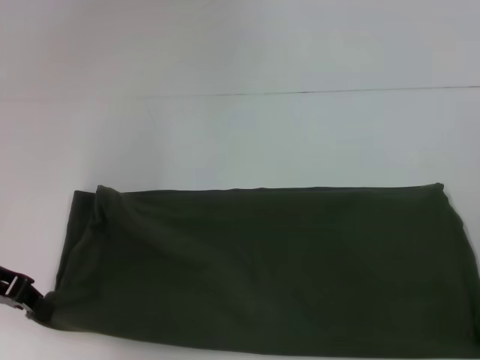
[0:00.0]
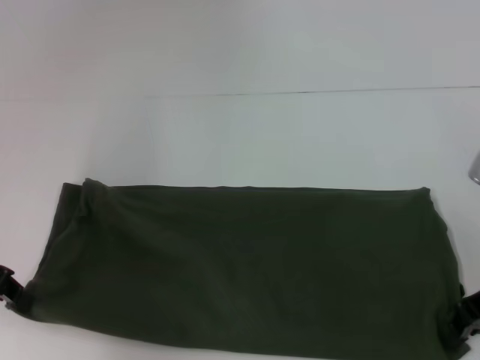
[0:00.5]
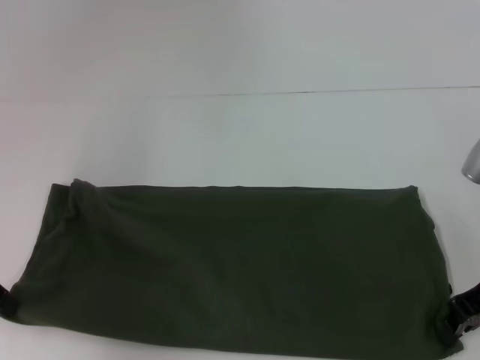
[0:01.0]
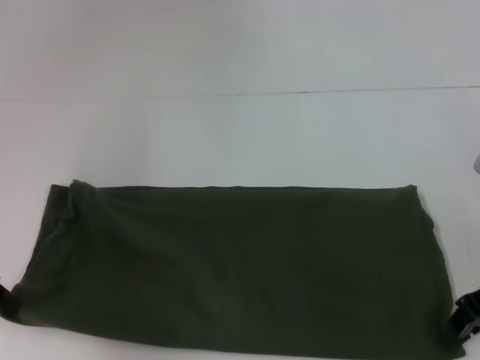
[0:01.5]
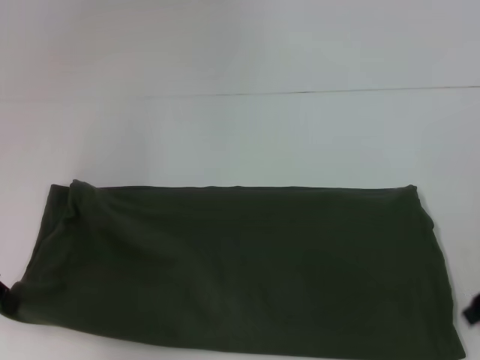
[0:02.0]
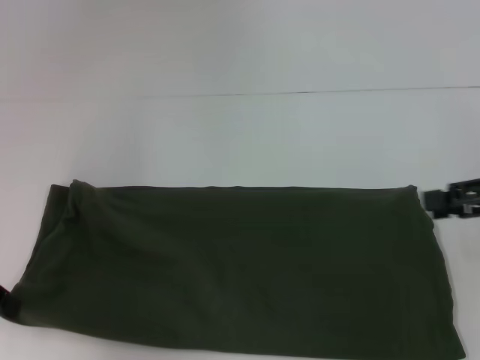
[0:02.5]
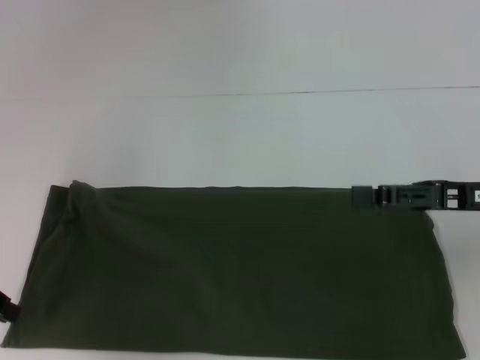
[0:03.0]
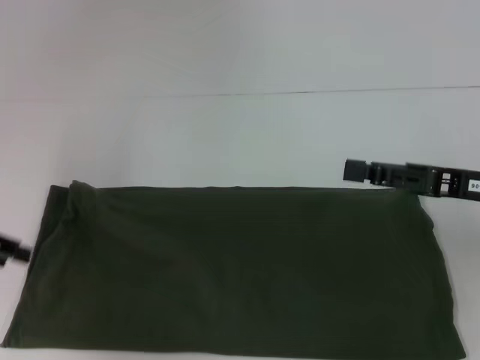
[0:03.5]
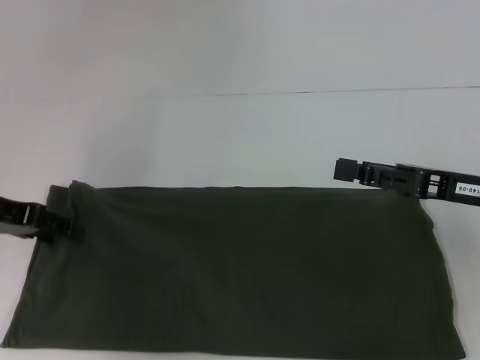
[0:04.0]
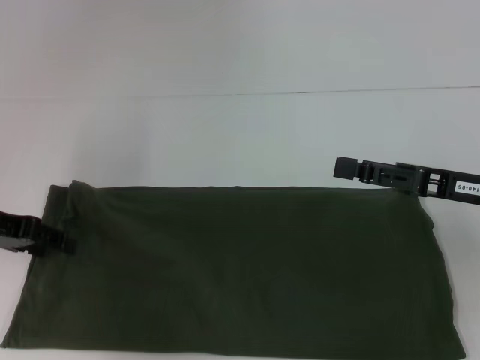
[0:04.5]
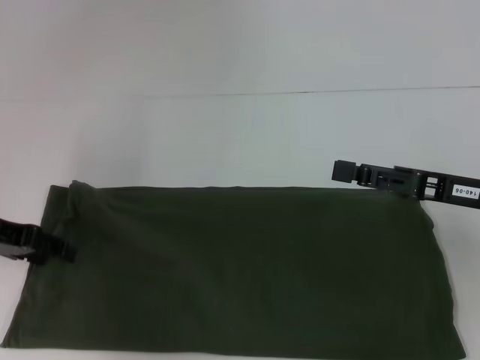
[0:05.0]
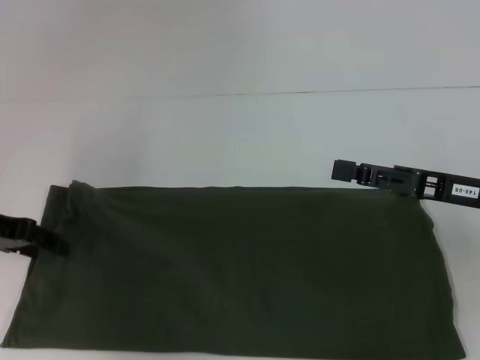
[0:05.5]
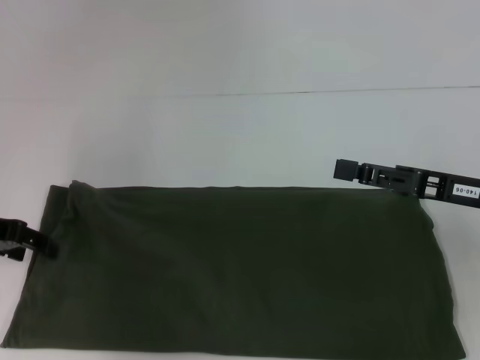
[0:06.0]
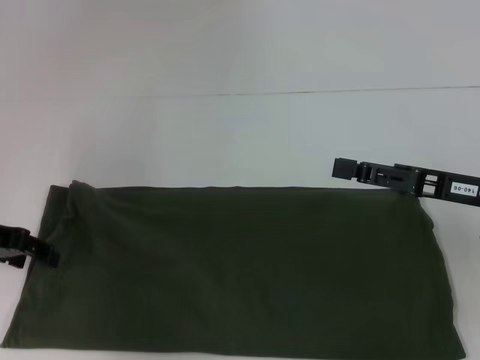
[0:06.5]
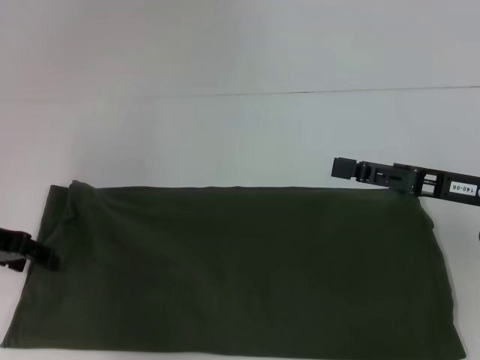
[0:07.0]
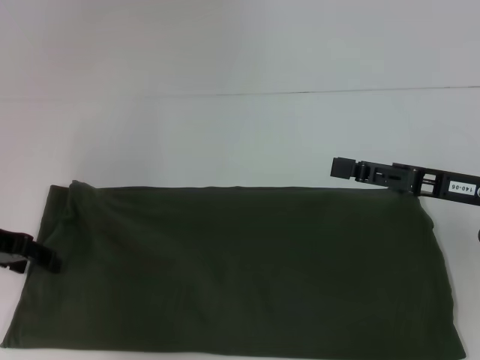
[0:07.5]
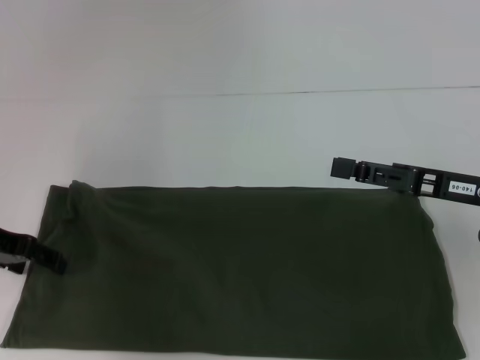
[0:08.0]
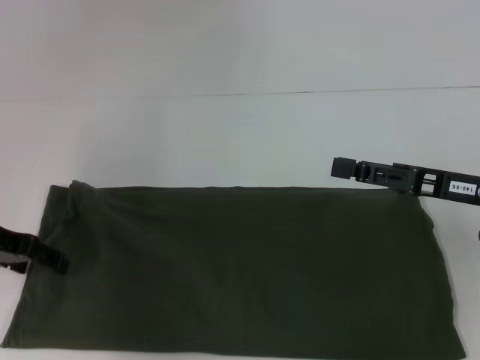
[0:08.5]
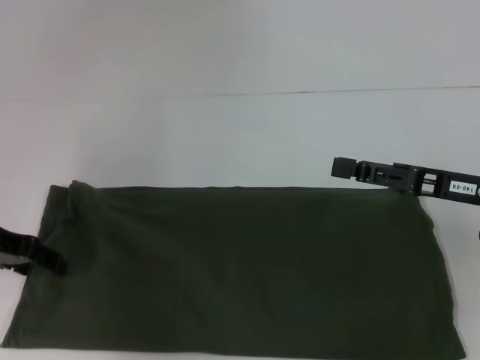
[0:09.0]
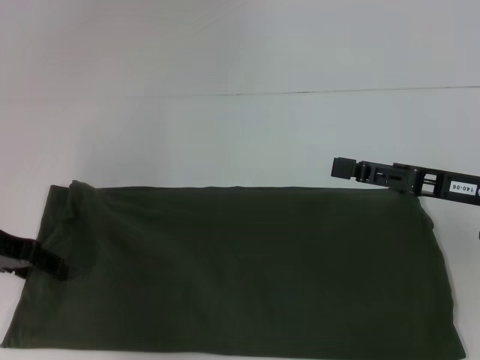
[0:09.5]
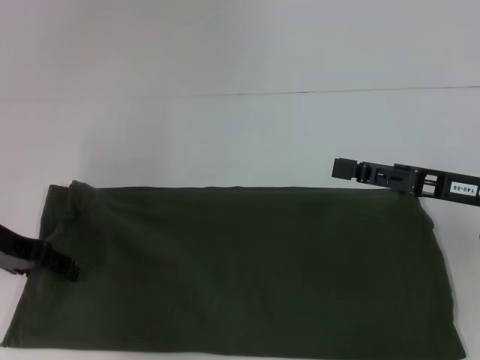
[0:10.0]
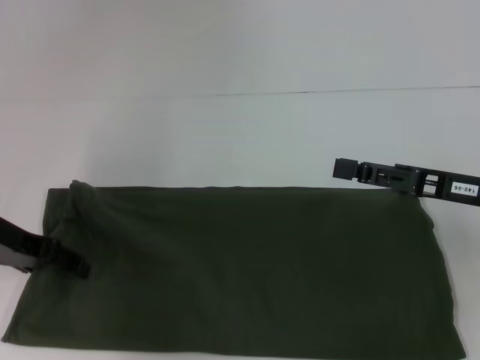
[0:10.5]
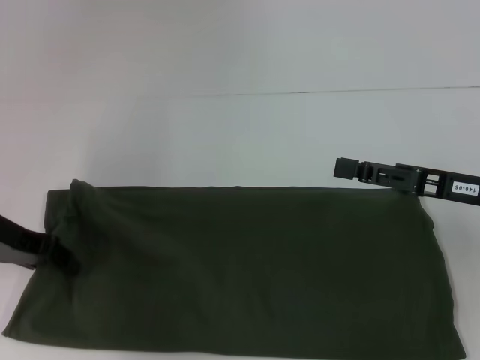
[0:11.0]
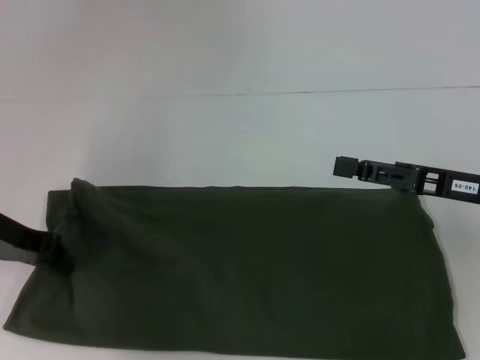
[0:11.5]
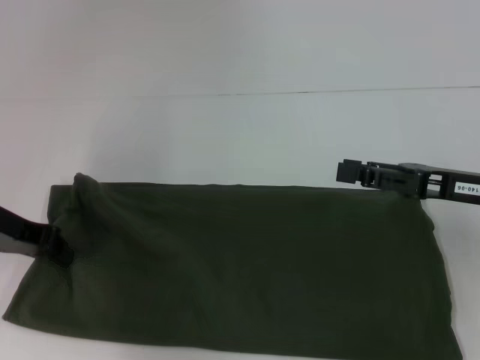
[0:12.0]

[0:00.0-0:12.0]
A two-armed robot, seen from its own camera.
0:00.0 to 0:02.0: The right gripper opens.
0:02.0 to 0:04.0: The right gripper moves to the left, roughly 5 cm; the left gripper opens its fingers.
0:04.0 to 0:08.0: There are only small adjustments of the grippers.
0:08.0 to 0:10.0: Neither gripper changes place.
0:10.0 to 0:12.0: The left gripper closes up.

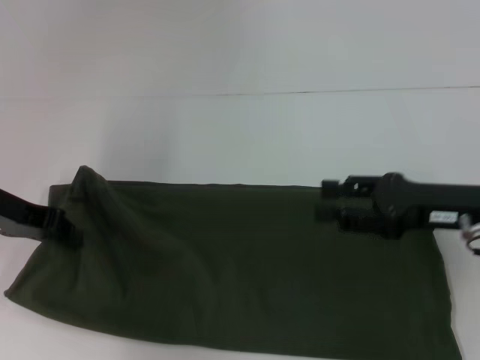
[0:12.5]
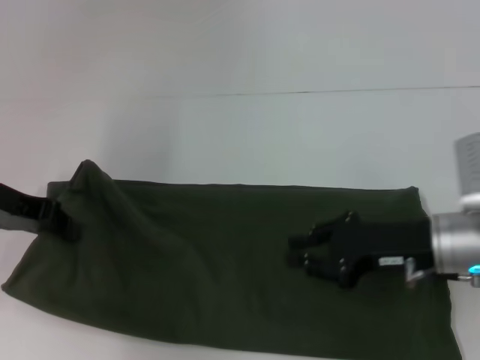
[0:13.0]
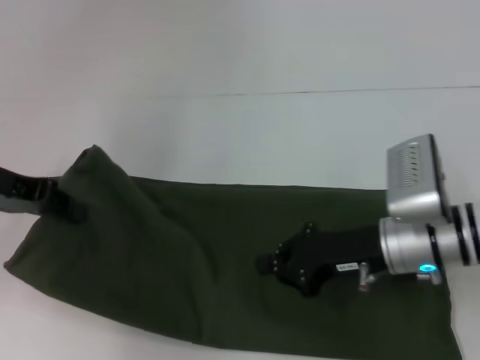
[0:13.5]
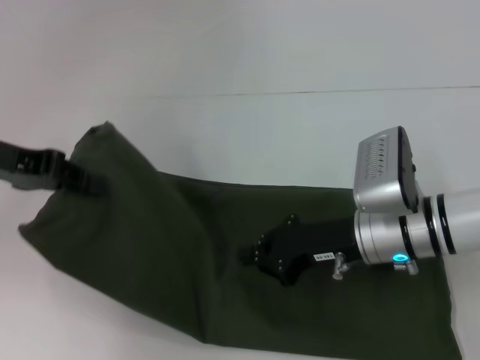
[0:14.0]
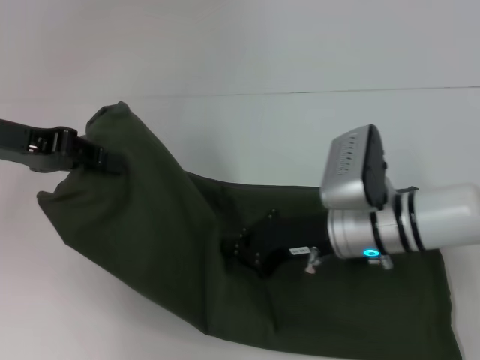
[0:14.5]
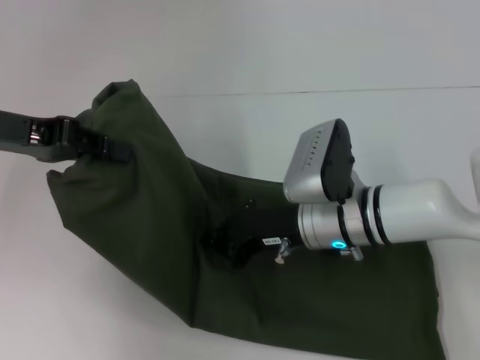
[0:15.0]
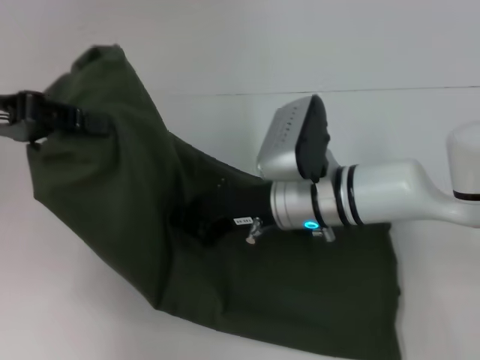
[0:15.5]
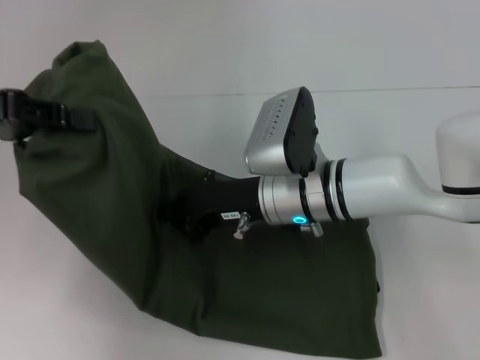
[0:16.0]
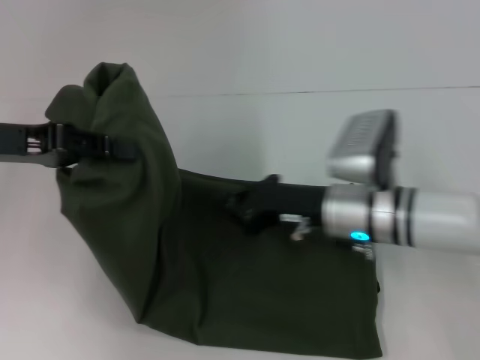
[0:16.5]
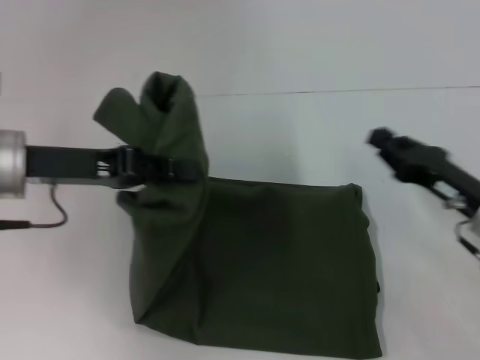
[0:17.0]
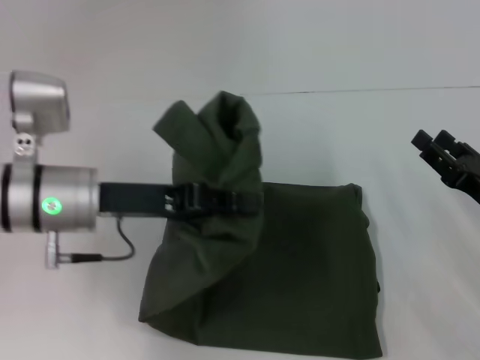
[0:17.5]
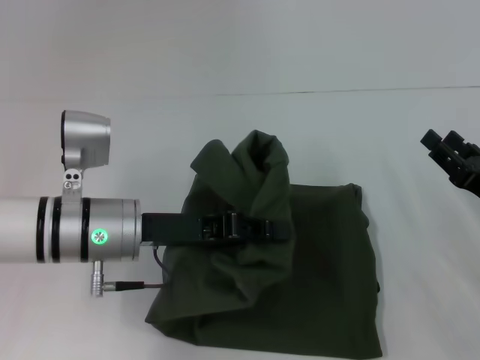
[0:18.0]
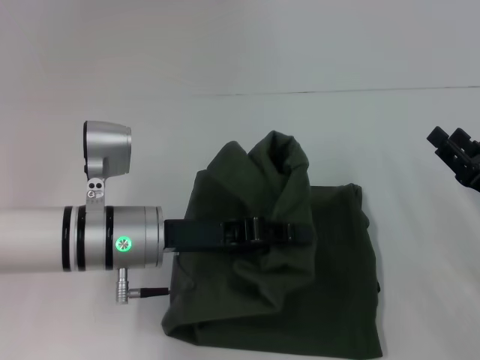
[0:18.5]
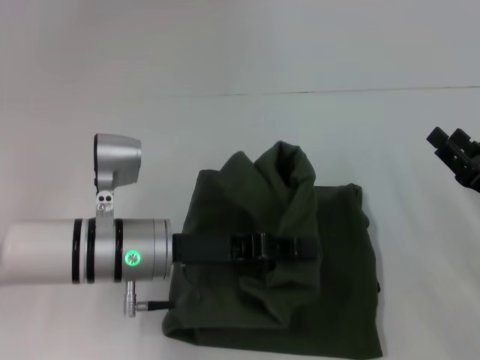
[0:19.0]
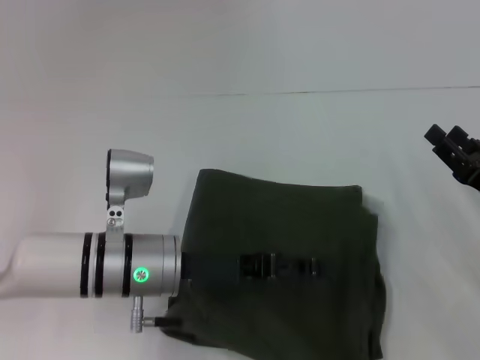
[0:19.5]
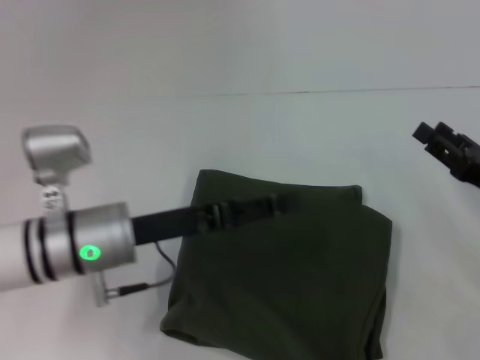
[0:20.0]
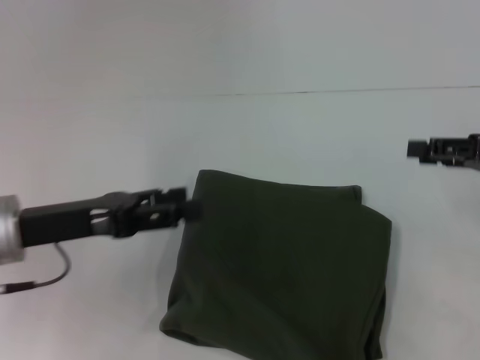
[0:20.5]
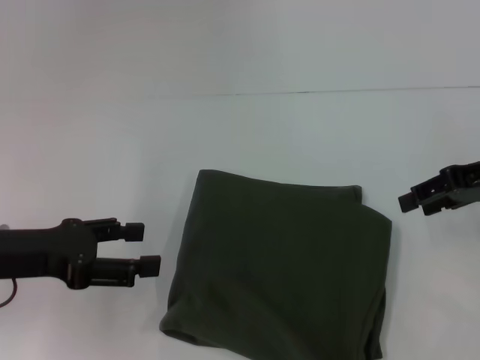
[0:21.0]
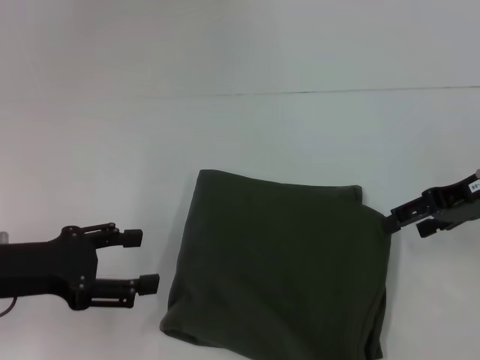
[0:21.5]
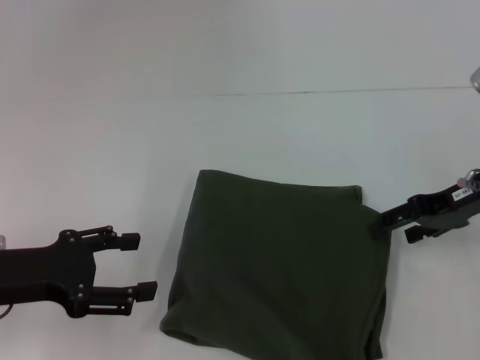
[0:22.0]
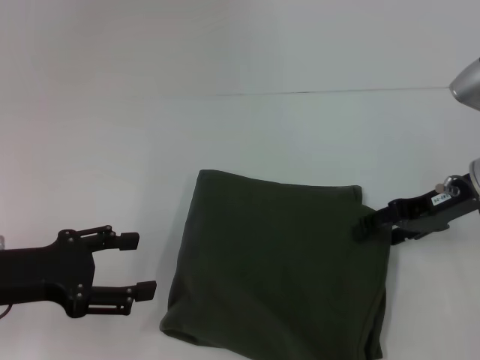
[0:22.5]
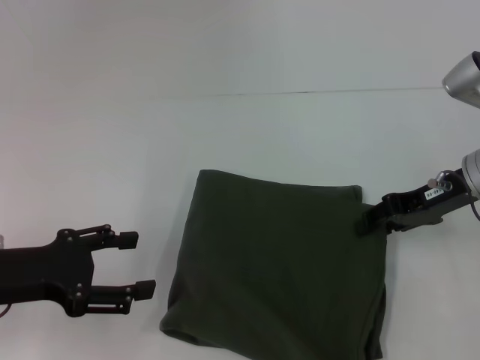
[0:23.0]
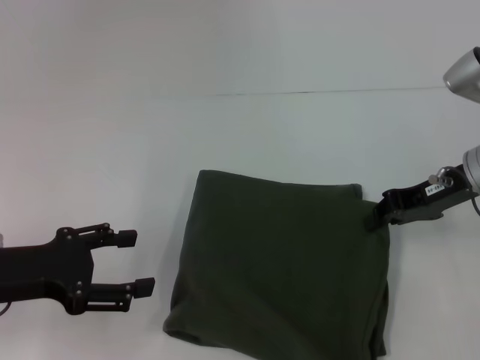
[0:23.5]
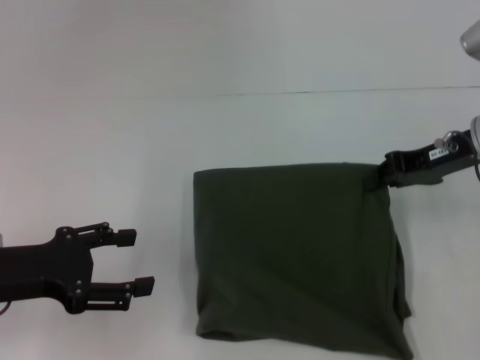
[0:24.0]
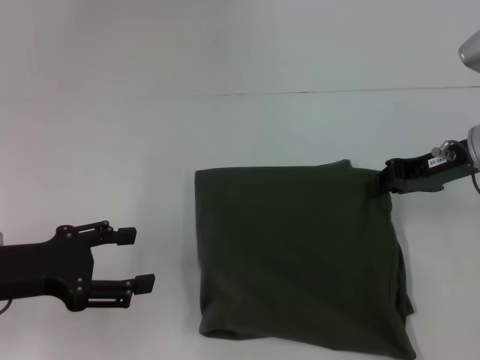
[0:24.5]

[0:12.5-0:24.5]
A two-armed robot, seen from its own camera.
Step, 0:12.5 to 0:20.0: Fold the clothes with your left hand.
0:12.5 to 0:14.5: The left gripper moves upward, about 5 cm. Meanwhile the right gripper heads to the left and downward, covering roughly 15 cm, and closes.
0:16.5 to 0:18.5: The right gripper goes approximately 20 cm to the right, and opens. The left gripper moves to the right and downward, some 20 cm.
0:18.5 to 0:20.5: The left gripper shifts approximately 10 cm to the left, and opens, while the right gripper is displaced upward and forward by about 10 cm.
0:20.5 to 0:22.5: The right gripper moves to the left, some 10 cm; the left gripper ends up approximately 5 cm from where it was.
0:22.5 to 0:24.5: The right gripper closes up.

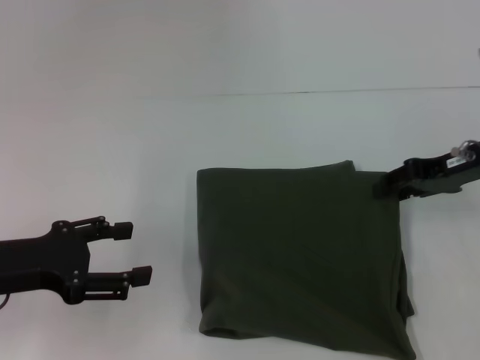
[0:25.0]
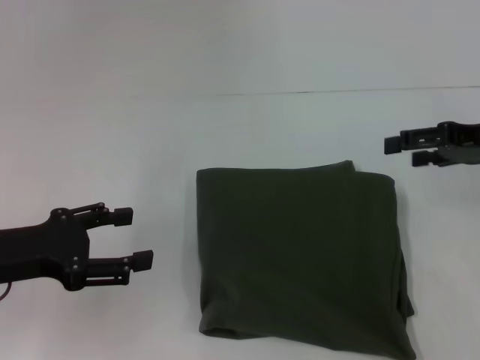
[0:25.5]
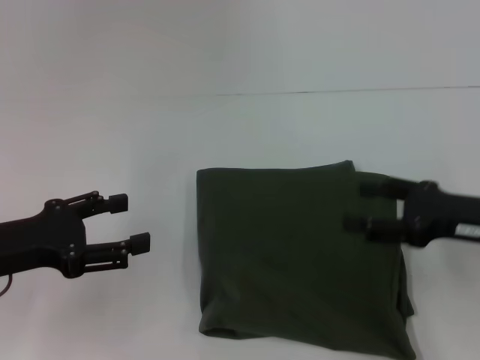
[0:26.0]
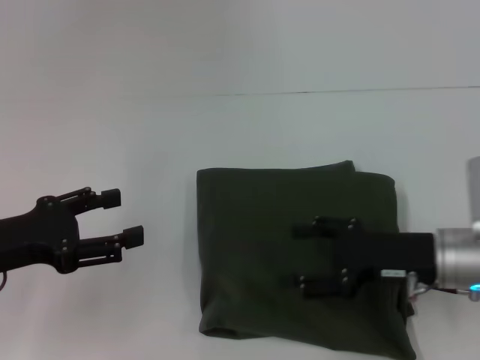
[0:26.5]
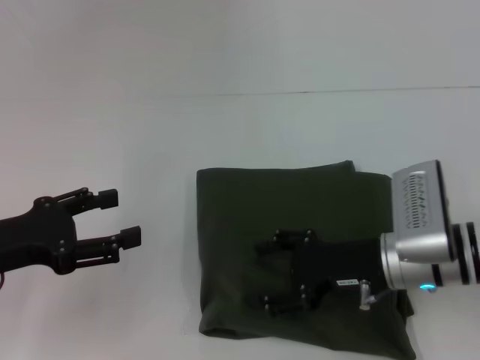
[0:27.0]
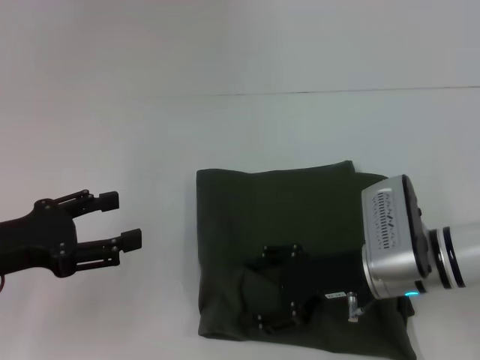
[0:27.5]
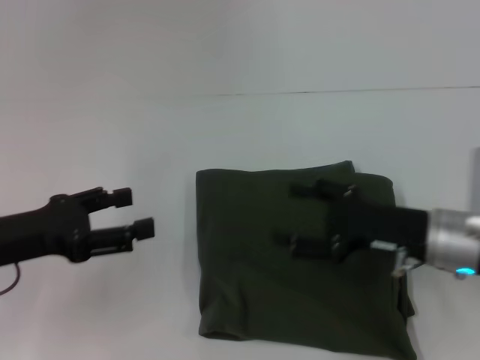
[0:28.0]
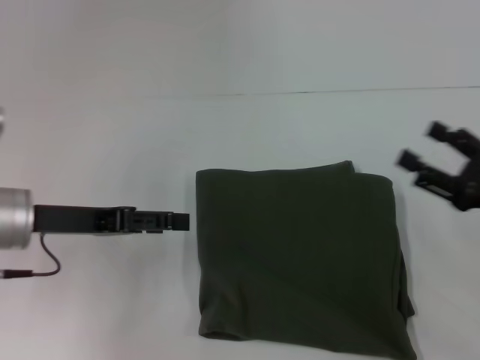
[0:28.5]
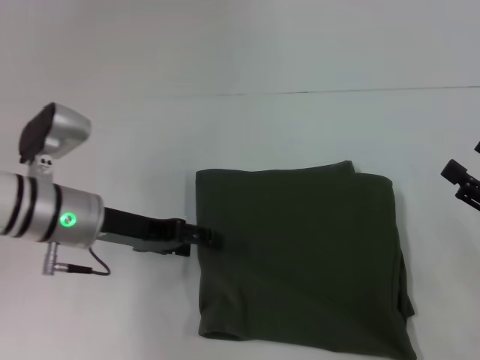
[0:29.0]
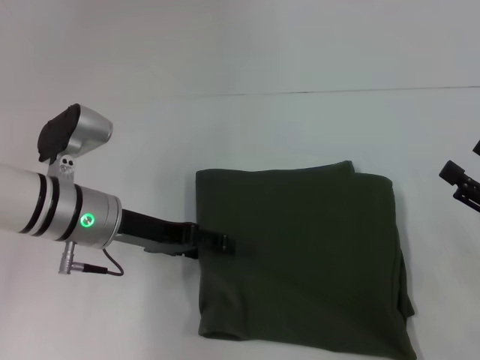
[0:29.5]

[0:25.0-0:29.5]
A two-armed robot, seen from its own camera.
0:25.0 to 0:27.0: The right gripper shifts roughly 15 cm to the left, downward and backward, and opens.
0:27.0 to 0:29.5: The left gripper is displaced to the right and forward by roughly 15 cm, while the right gripper is displaced to the right and backward by some 15 cm.
